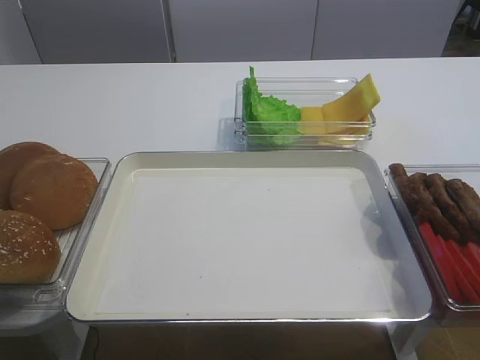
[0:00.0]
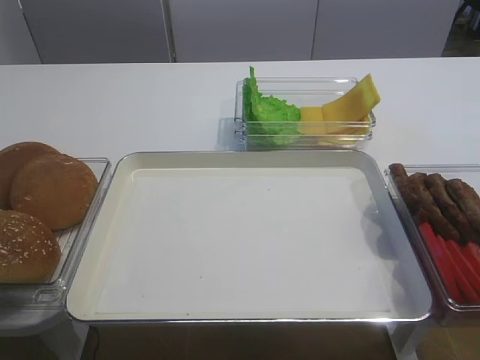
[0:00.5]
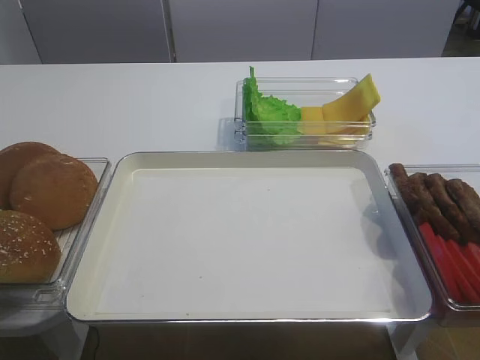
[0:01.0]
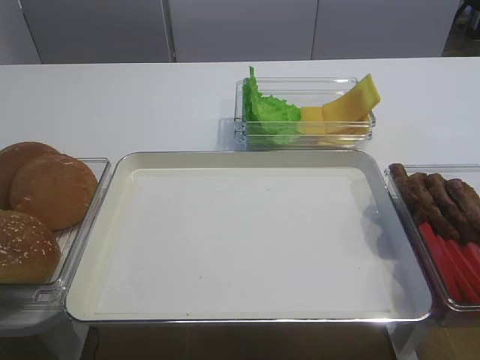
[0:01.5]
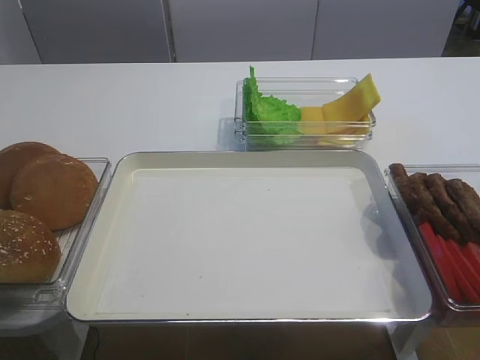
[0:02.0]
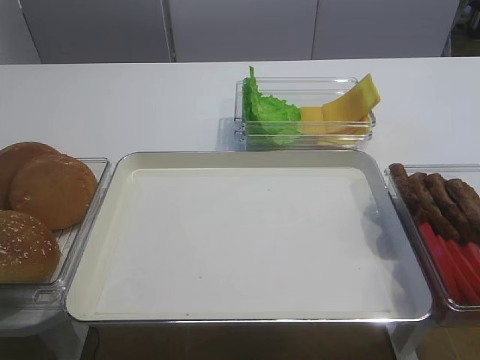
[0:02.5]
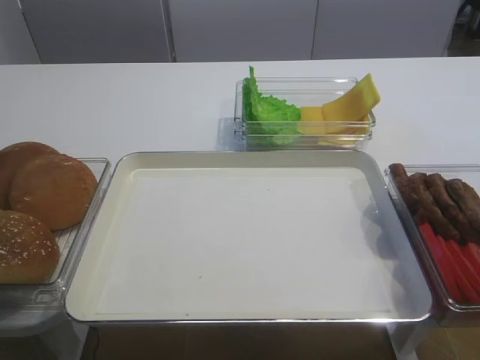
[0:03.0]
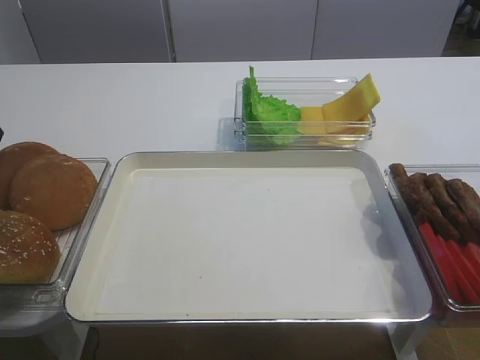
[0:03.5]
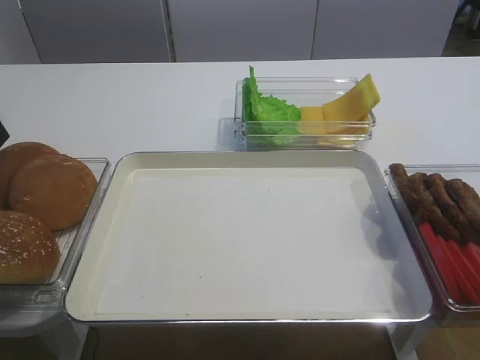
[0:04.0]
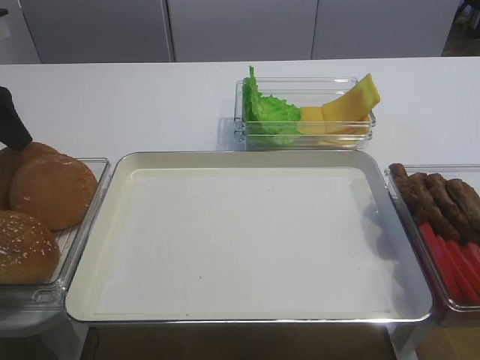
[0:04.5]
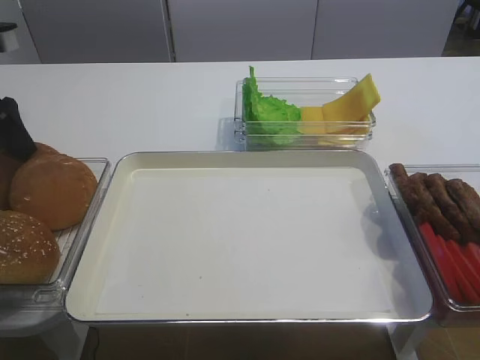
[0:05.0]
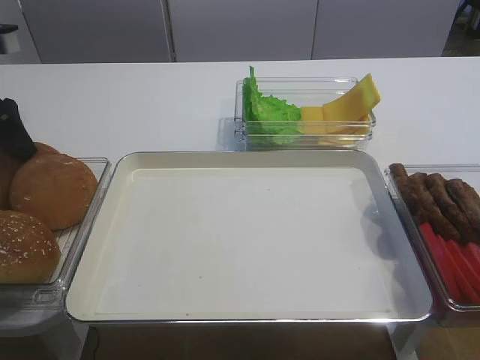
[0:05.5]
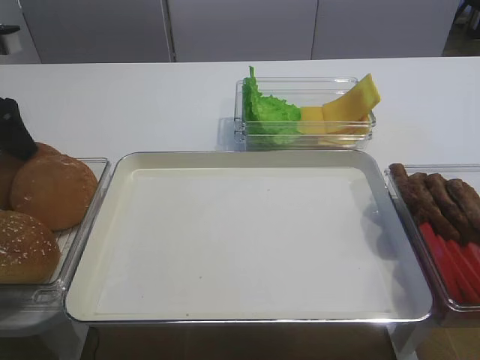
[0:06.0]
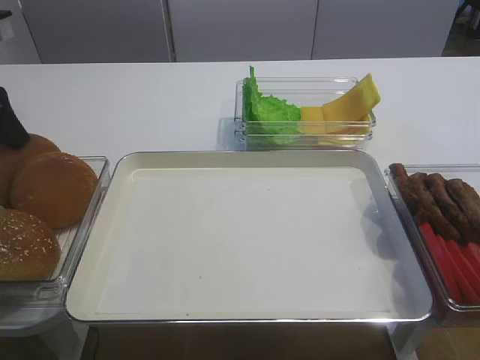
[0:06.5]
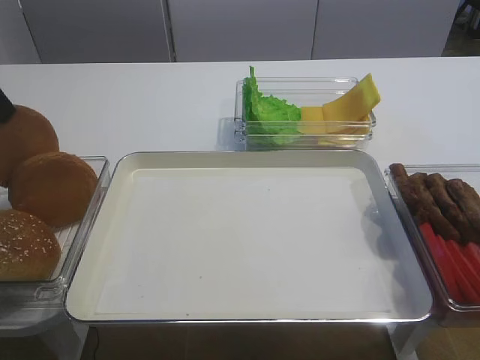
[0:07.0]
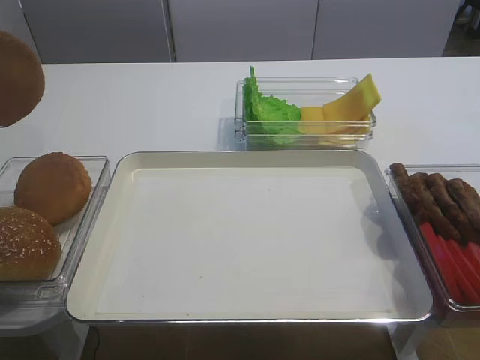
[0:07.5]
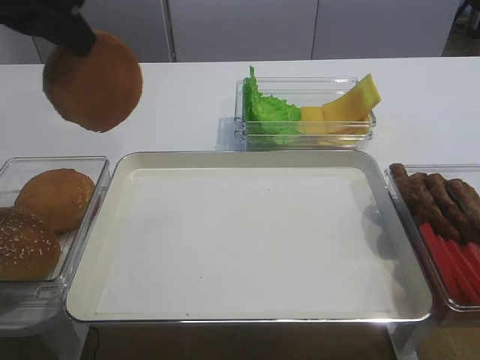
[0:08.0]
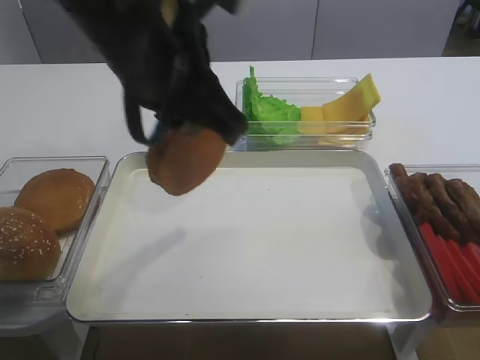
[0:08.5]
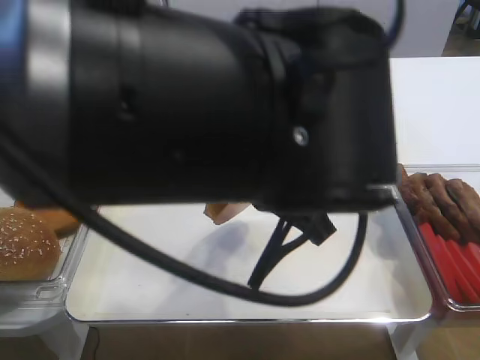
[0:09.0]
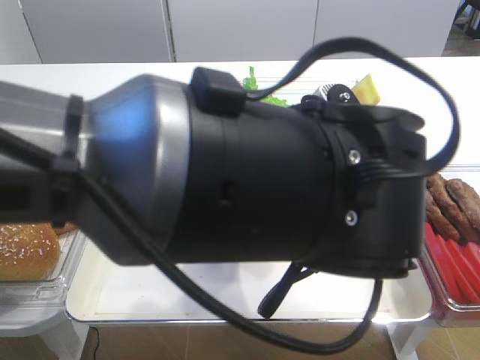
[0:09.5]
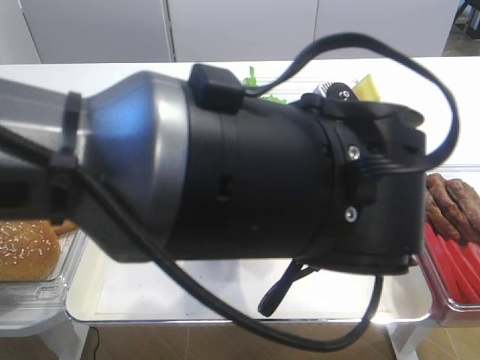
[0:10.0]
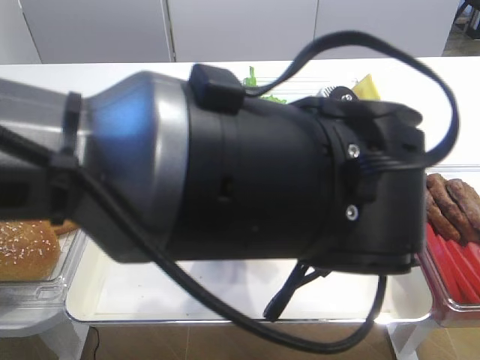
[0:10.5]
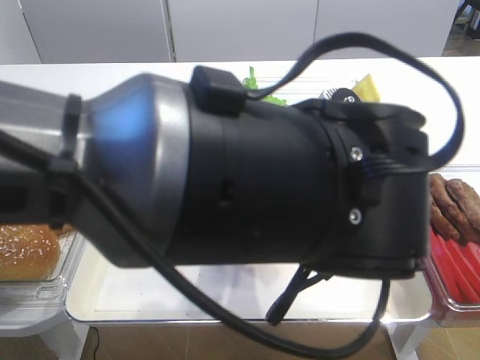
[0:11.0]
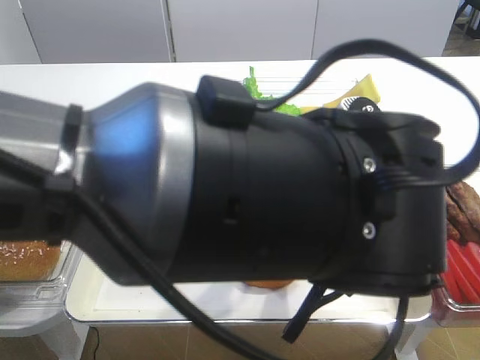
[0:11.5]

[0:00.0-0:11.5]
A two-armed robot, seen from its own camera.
Step, 0:00.0 to 0:07.0: Pick up the bread slice with the left gripper.
0:04.0 to 0:06.0: The left gripper closes its fingers.
0:06.0 to 0:07.5: The left gripper moves upward and backward, roughly 15 cm.
0:07.5 to 0:09.5: The left gripper is displaced to the right and downward by approximately 35 cm.
0:09.5 to 0:11.5: The left gripper opens its fingers.

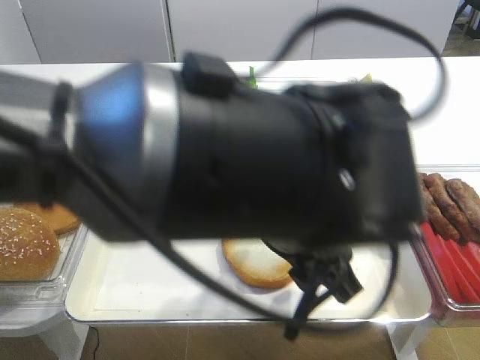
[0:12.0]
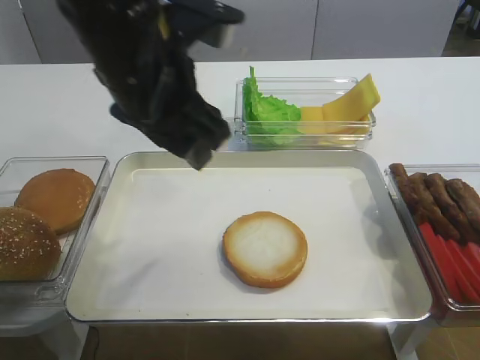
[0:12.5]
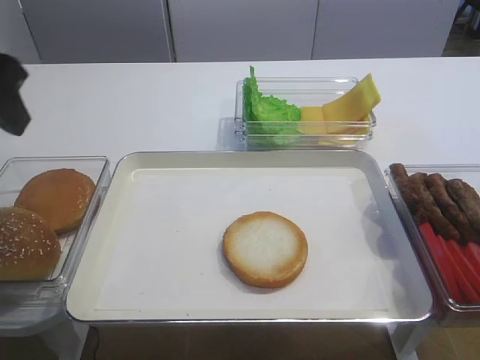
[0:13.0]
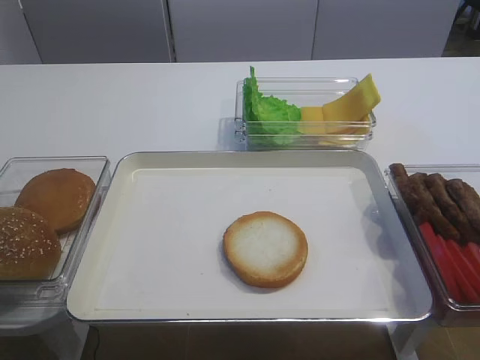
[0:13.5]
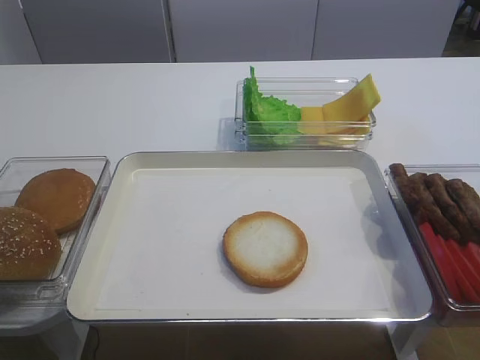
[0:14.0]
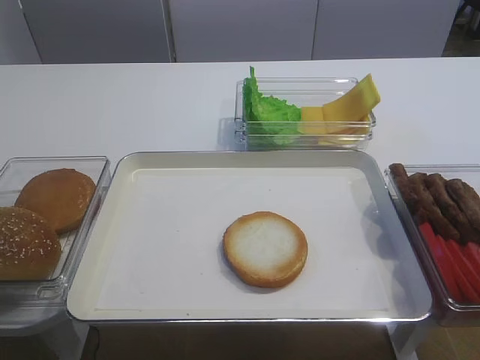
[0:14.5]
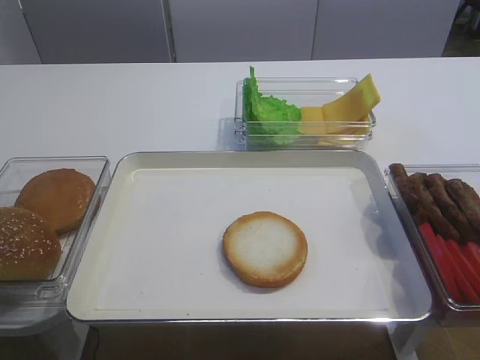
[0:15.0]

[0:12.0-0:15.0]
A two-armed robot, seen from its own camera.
0:12.0 to 0:13.5: The left gripper shifts approximately 35 cm to the left and backward.

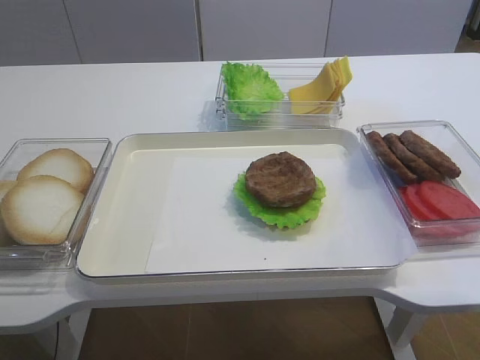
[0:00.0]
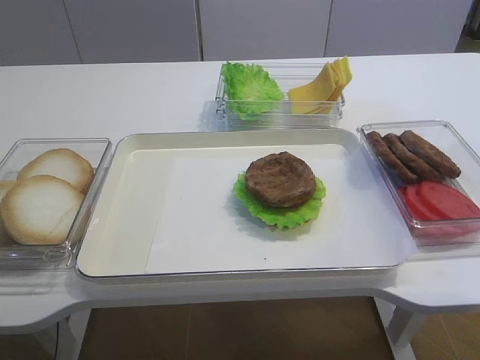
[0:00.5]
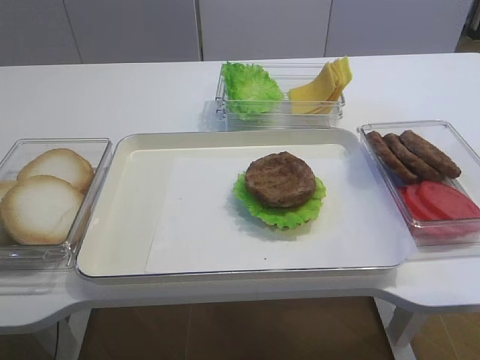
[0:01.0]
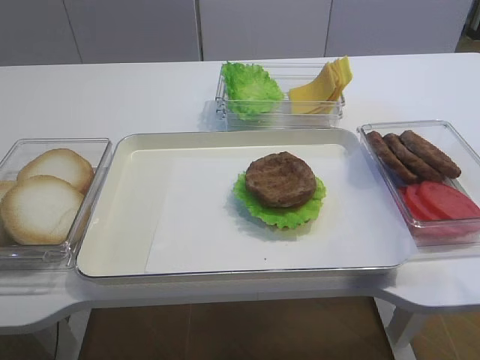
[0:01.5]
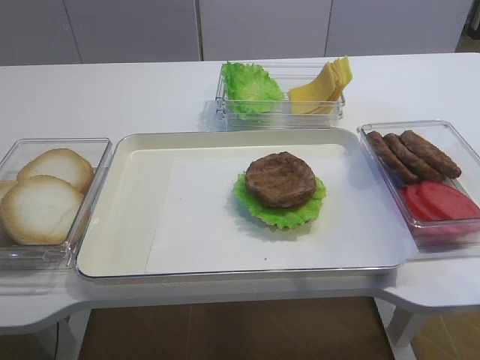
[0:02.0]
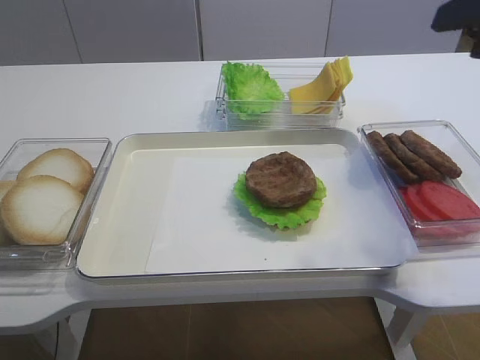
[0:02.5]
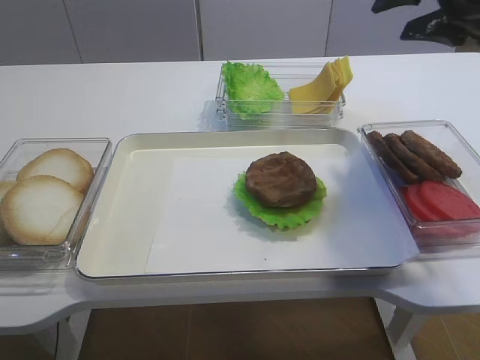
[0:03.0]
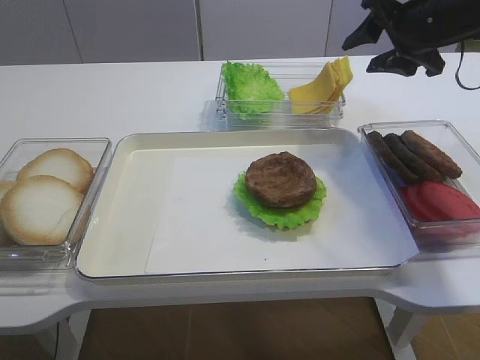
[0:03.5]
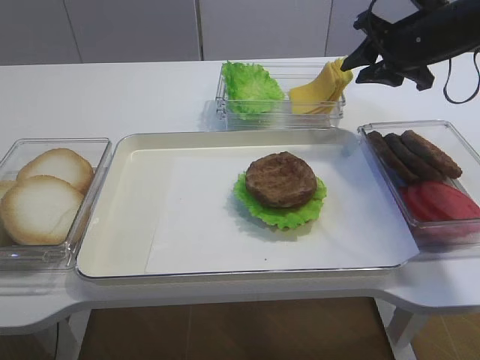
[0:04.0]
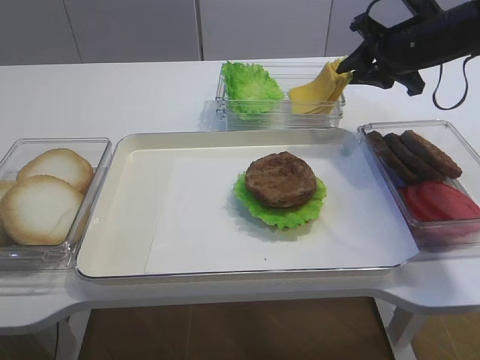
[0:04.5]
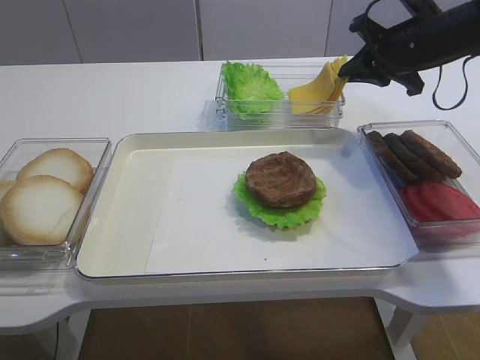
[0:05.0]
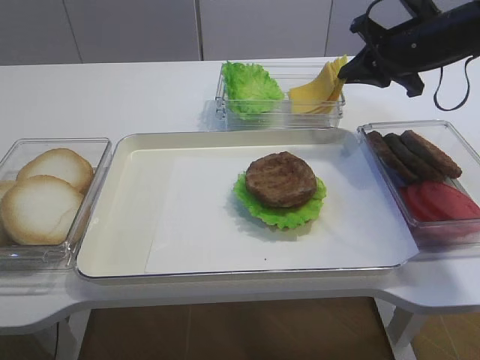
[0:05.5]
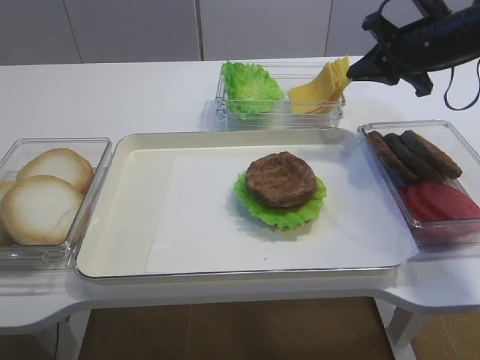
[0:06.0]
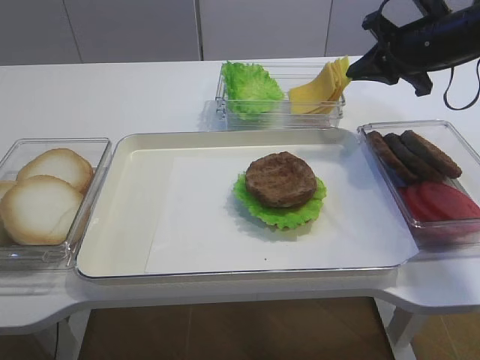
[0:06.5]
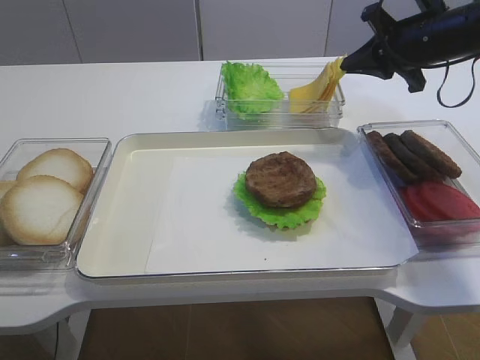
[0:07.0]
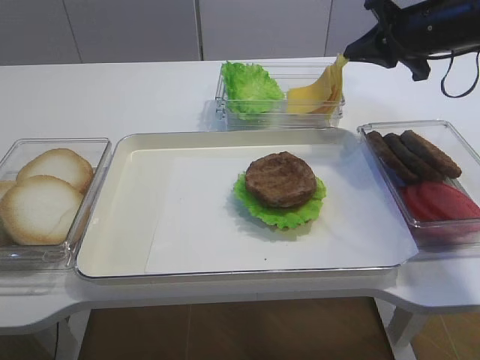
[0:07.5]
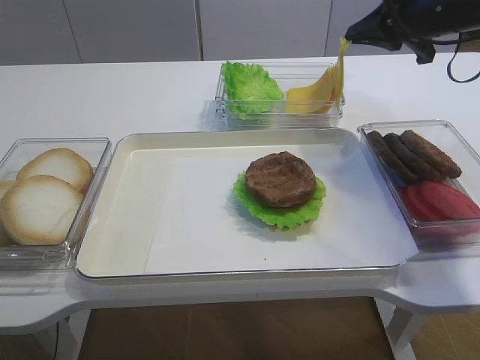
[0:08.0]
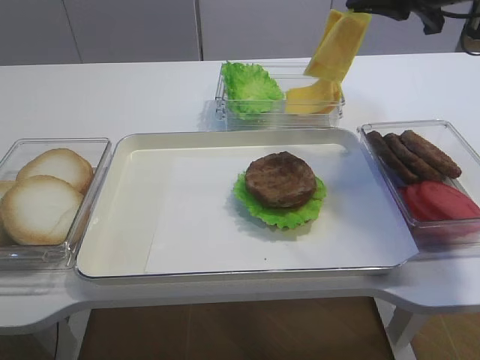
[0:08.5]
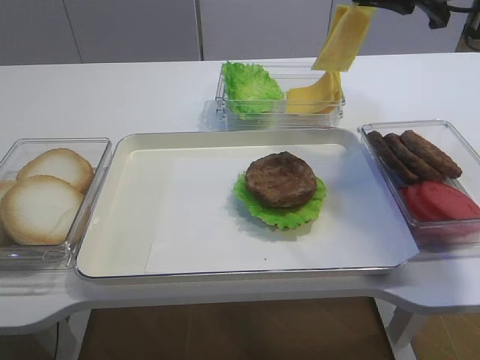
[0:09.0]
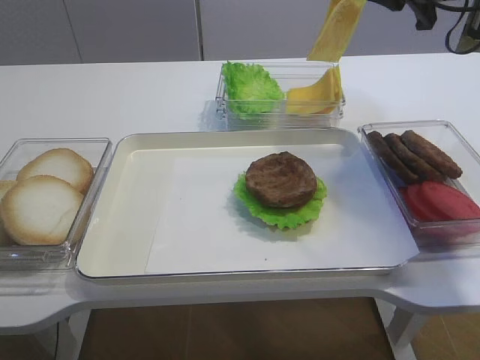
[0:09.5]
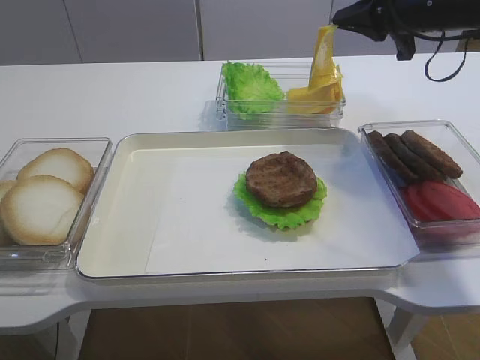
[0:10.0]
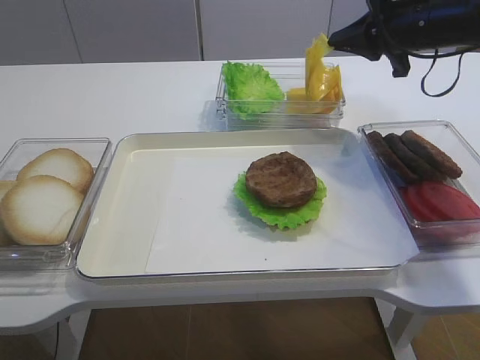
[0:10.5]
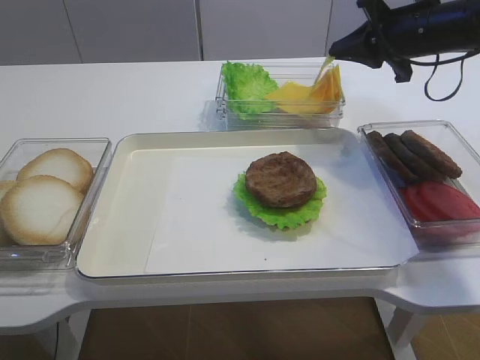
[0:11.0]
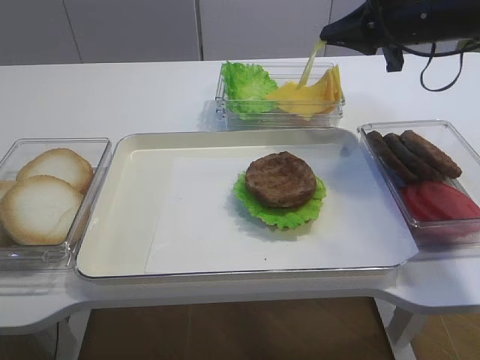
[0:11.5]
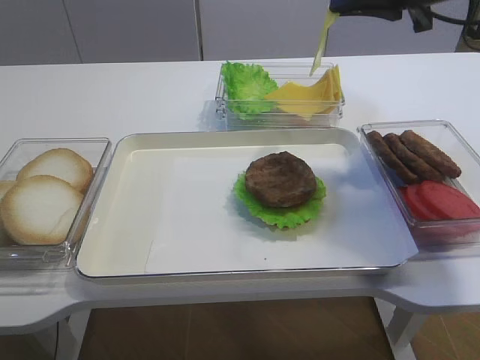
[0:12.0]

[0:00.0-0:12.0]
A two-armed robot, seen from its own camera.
Step, 0:00.0 to 0:07.5: Pick up the cheese slice with the right gripper.
0:02.0 to 0:04.0: The right gripper goes some 35 cm forward.
0:04.0 to 0:06.0: The right gripper closes.
0:06.0 to 0:08.0: The grippers move only a little.
0:08.0 to 0:10.0: There are only small adjustments of the grippers.
0:10.0 to 0:12.0: The right gripper is displaced upward and backward by approximately 5 cm.
